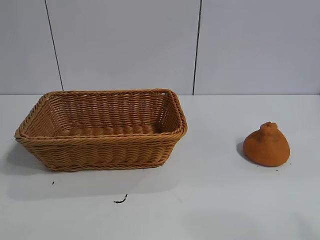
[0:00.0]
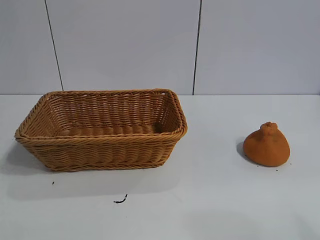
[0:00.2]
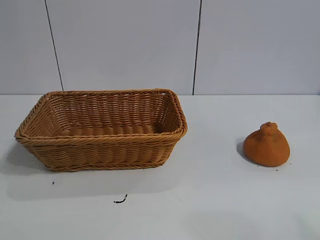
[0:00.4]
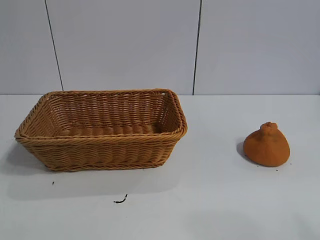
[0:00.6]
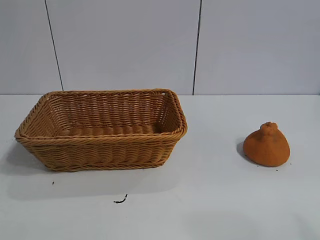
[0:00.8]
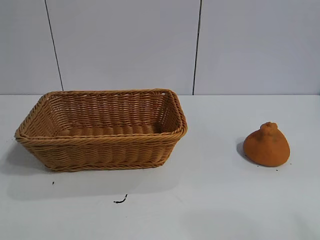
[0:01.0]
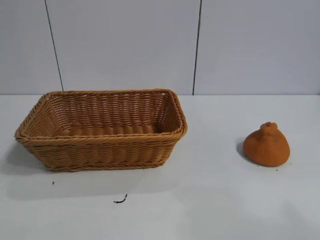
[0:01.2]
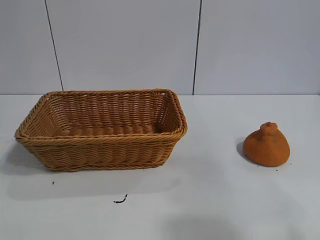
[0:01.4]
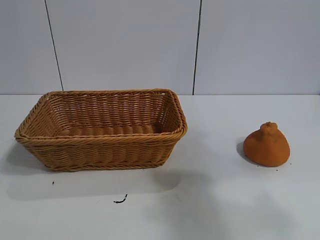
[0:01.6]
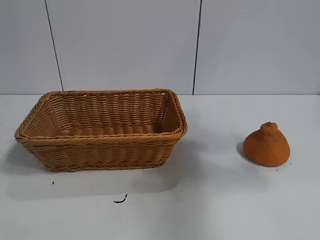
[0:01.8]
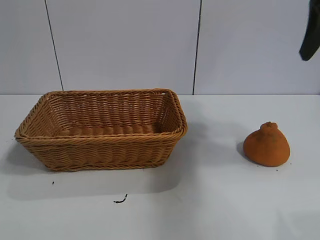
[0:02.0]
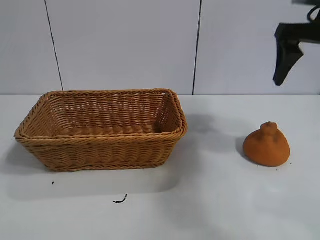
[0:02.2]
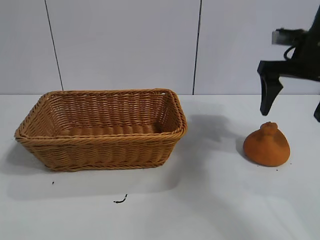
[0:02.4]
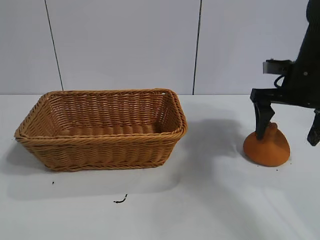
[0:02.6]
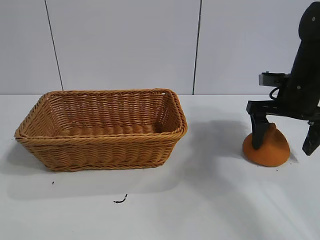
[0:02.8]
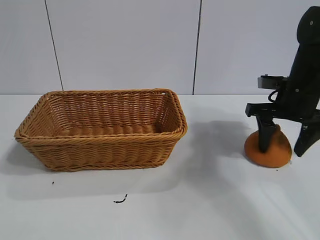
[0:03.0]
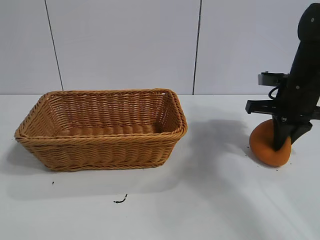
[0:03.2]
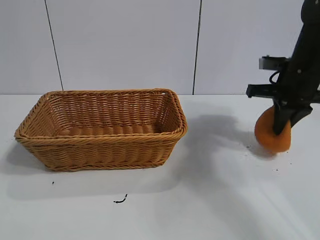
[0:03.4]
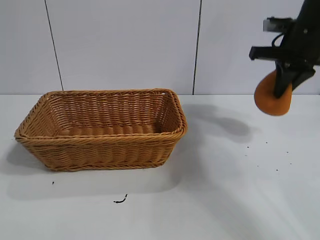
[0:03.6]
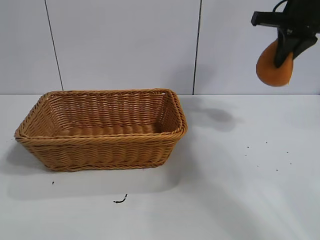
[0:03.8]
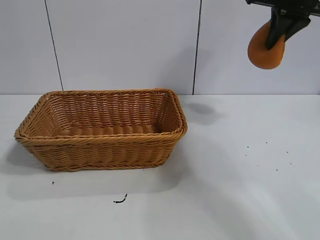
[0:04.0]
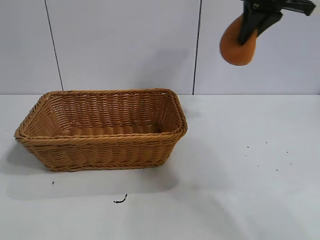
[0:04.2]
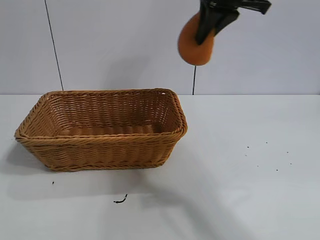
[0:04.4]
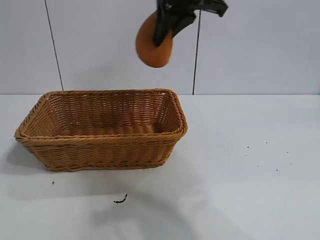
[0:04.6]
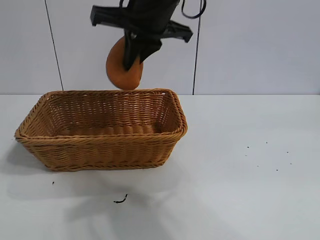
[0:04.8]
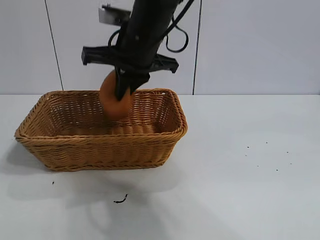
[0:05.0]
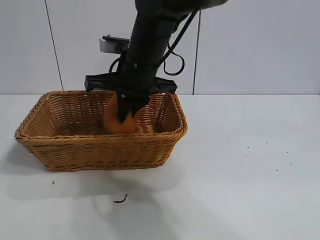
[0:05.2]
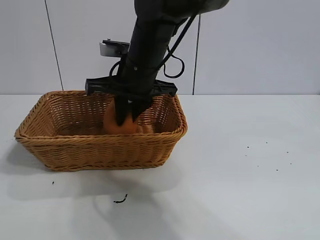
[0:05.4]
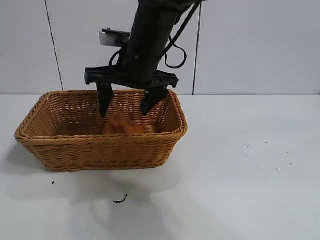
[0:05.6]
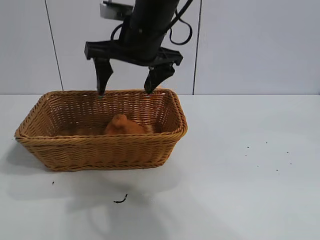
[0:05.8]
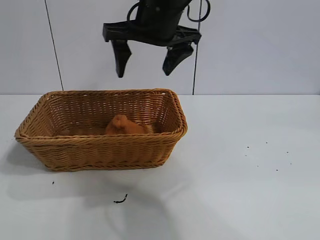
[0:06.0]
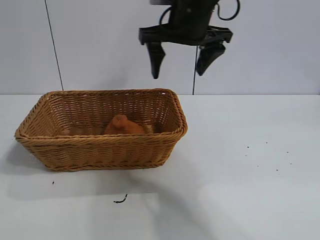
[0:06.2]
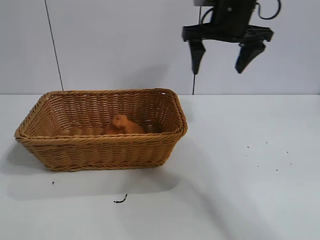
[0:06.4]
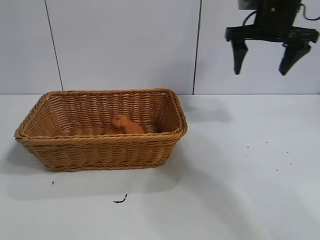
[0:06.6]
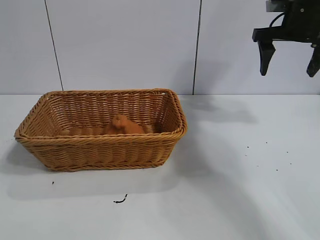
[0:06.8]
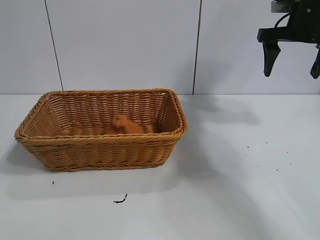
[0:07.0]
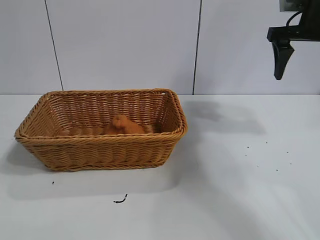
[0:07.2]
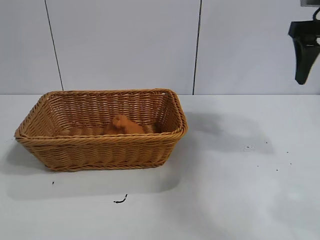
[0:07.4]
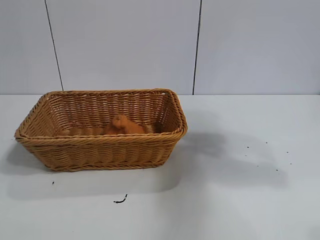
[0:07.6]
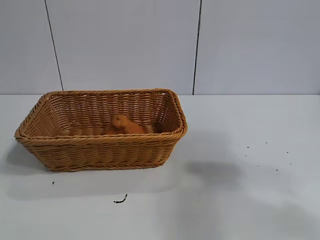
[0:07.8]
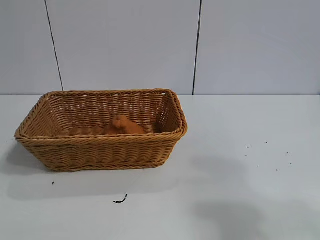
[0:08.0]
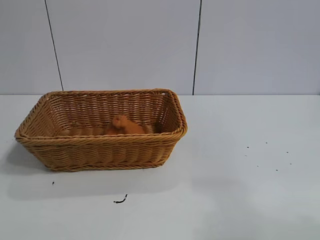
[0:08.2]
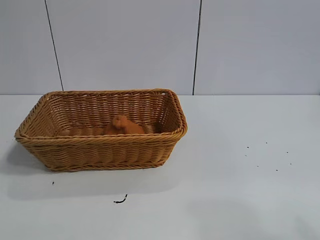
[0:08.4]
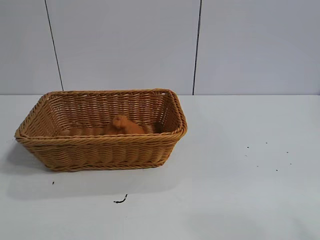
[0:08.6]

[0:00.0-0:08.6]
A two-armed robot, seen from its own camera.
Task of the whole recording: pick up the orange and put it into the basket.
Step, 0:01.0 to 0:03.0: Grasp the orange with right gripper.
Step, 0:03.4 to 0:05.8: Place the orange in the basket with right gripper.

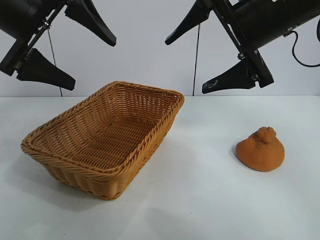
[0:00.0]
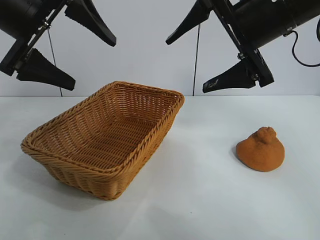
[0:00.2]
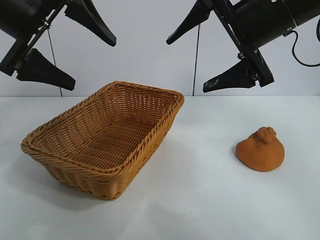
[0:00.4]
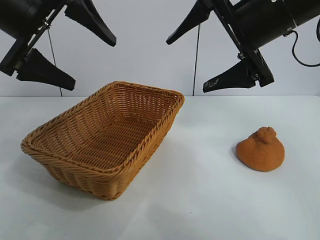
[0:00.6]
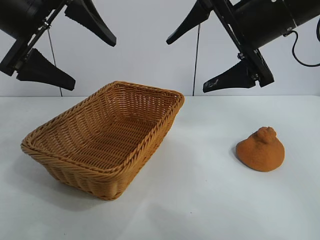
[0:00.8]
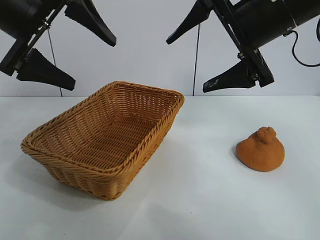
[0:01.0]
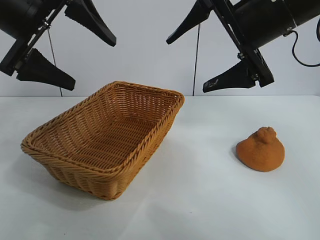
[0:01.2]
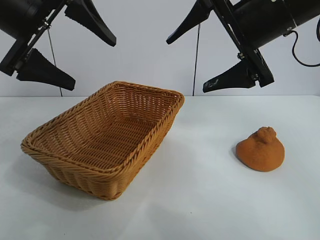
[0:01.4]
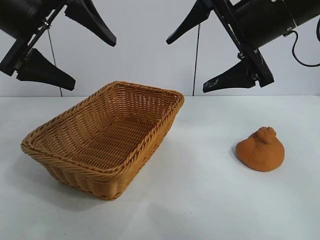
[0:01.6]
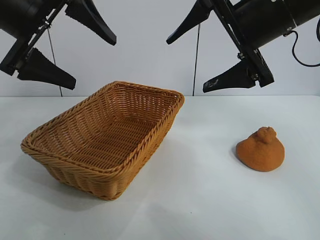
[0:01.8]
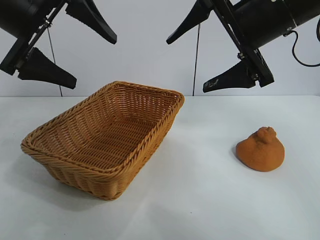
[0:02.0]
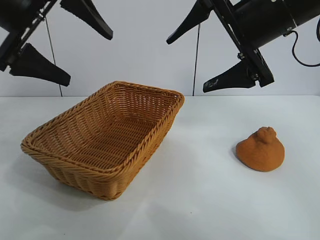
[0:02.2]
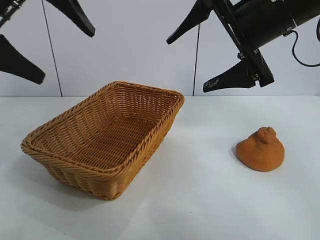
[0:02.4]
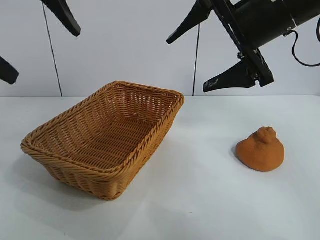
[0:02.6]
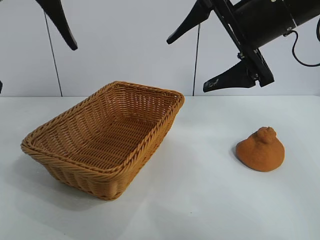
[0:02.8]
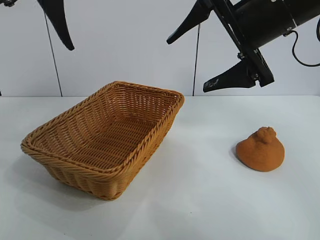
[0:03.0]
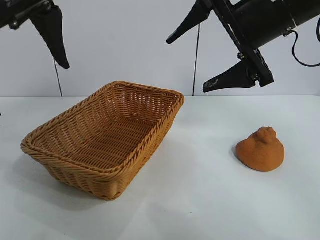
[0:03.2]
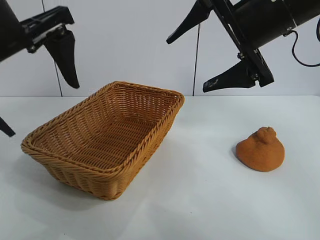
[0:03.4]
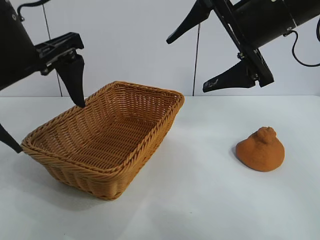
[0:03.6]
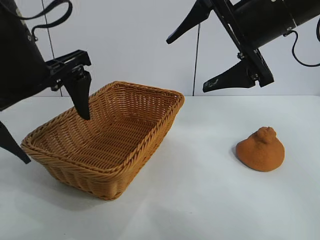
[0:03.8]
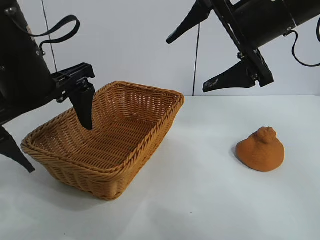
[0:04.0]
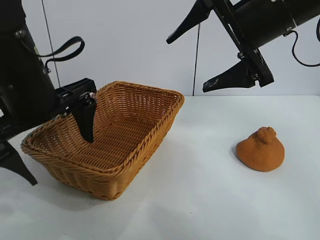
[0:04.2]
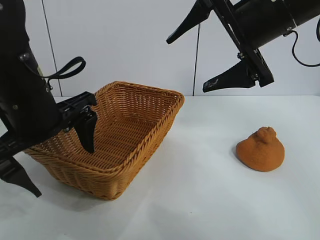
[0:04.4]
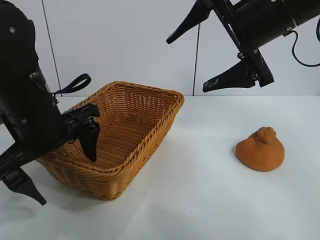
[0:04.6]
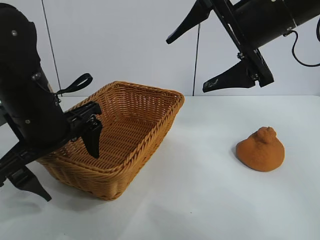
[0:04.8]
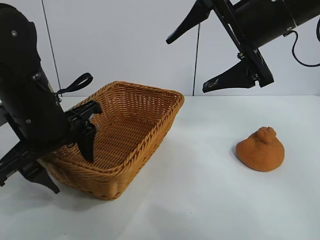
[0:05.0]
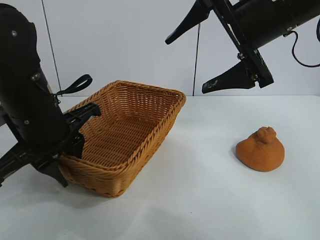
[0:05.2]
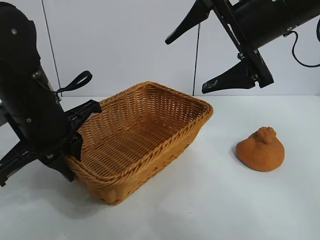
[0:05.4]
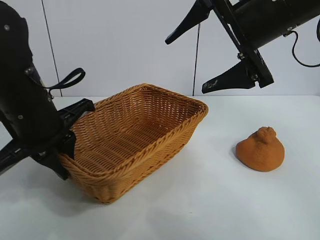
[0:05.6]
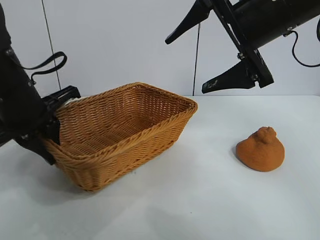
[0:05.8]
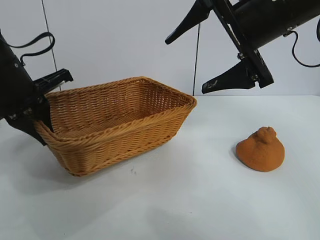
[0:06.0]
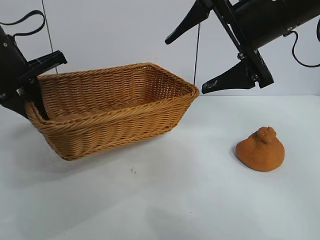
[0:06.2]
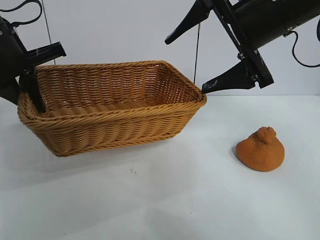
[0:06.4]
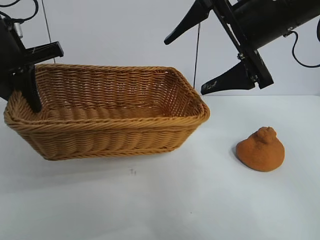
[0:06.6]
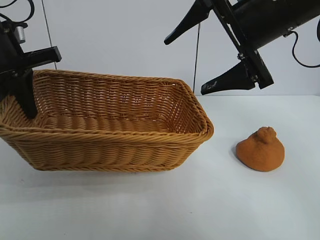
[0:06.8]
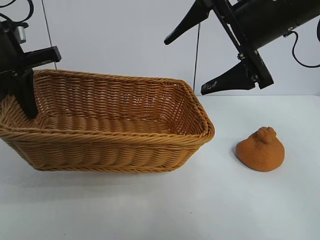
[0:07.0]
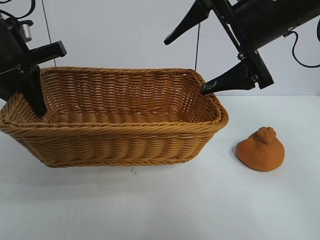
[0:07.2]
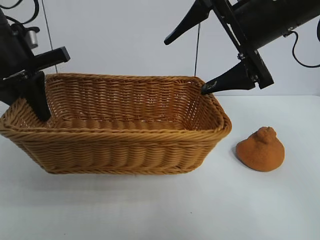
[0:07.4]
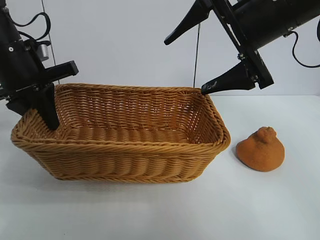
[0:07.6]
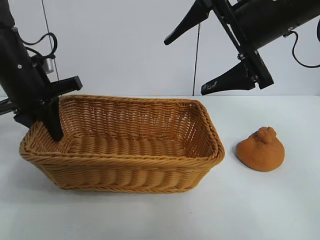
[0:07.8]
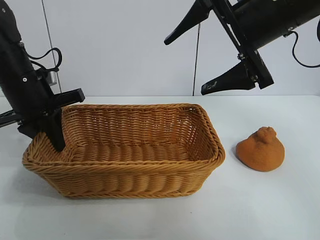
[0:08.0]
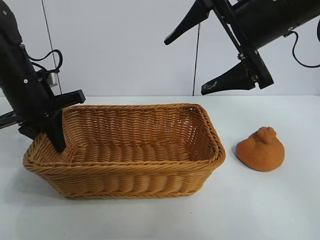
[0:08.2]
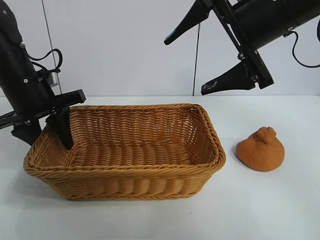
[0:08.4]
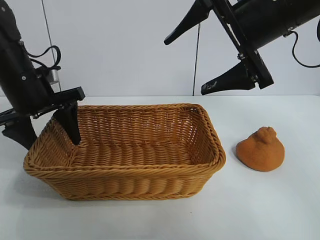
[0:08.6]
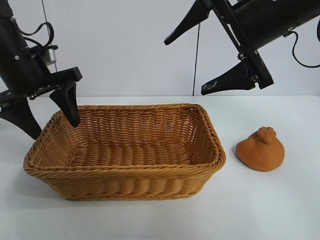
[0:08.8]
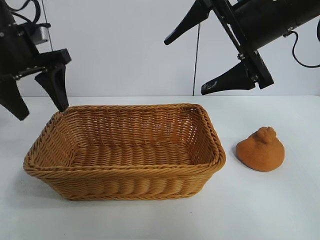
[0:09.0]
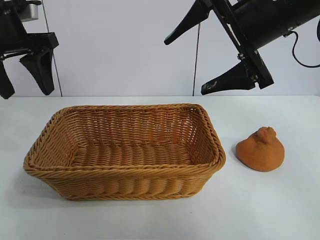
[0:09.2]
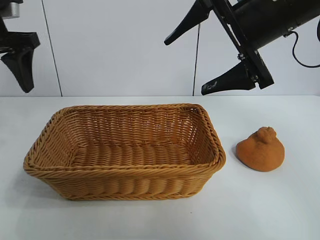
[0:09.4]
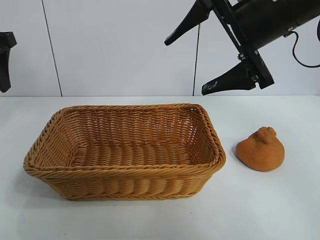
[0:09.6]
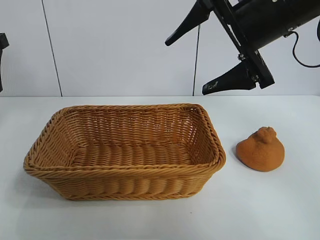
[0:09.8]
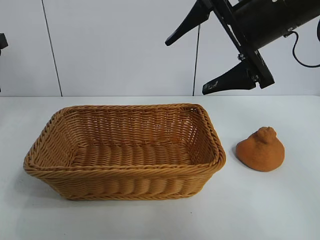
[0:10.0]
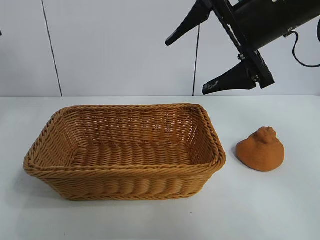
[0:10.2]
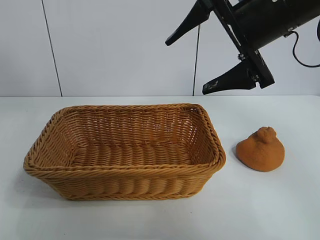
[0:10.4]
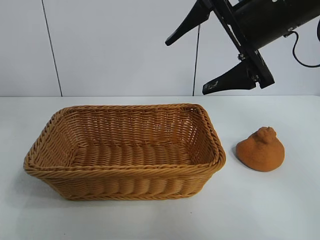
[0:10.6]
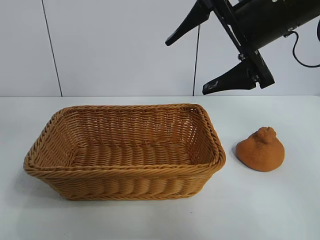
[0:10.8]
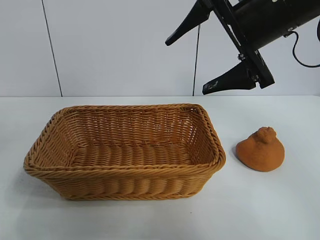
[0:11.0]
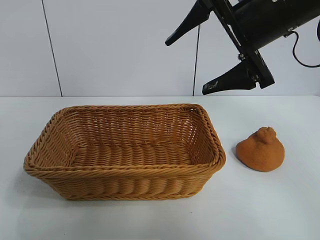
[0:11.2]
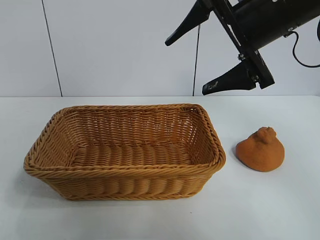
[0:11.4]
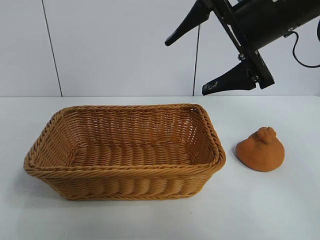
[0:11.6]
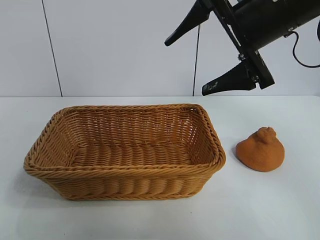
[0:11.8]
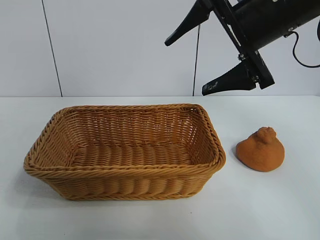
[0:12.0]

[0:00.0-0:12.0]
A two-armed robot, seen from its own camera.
Task of the whole recording: pick up the orange and put it into the basket.
Step, 0:01.8 to 0:05.2: Grasp the basket with left gripper.
Step, 0:05.4 to 0:08.6: Place the basket in the center of view with left gripper.

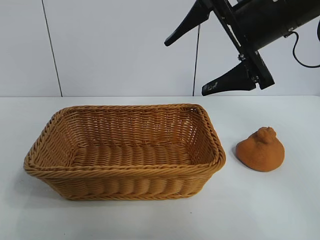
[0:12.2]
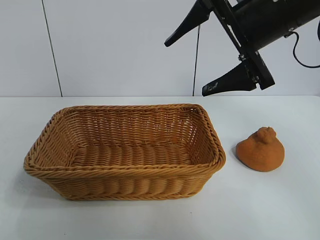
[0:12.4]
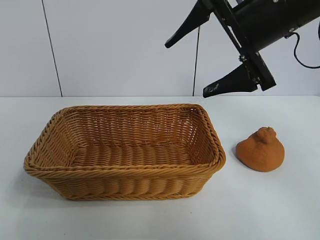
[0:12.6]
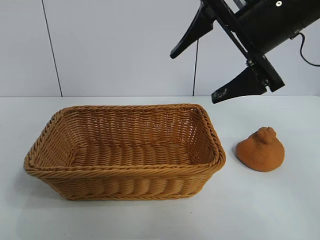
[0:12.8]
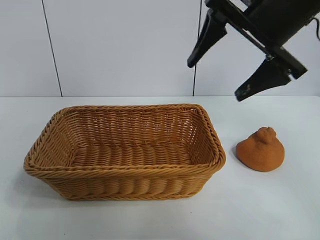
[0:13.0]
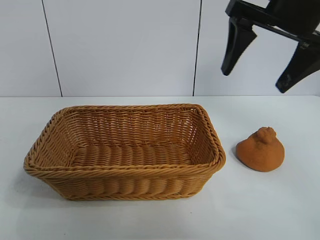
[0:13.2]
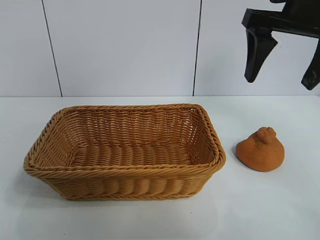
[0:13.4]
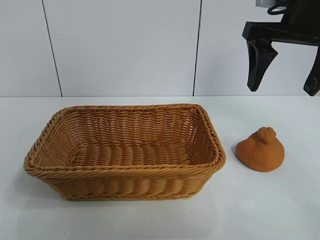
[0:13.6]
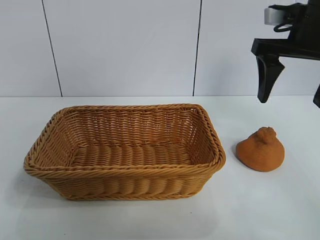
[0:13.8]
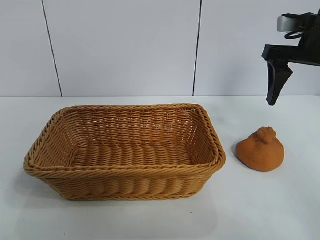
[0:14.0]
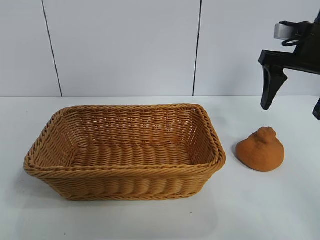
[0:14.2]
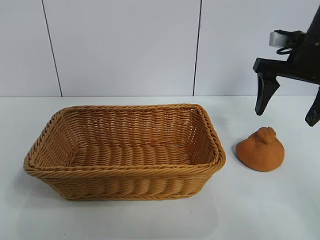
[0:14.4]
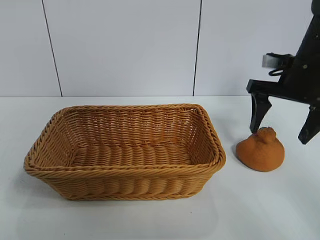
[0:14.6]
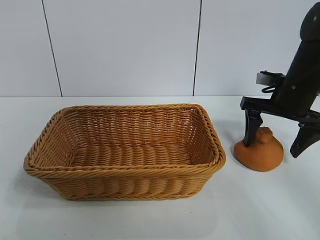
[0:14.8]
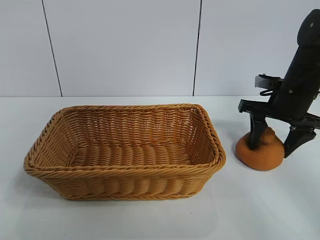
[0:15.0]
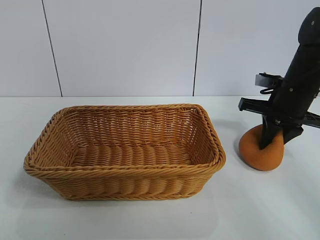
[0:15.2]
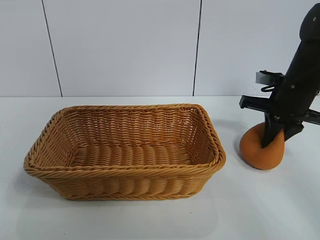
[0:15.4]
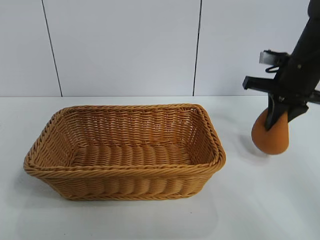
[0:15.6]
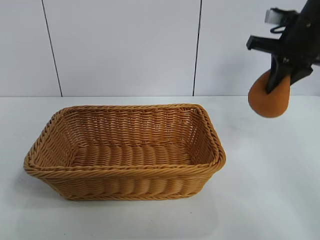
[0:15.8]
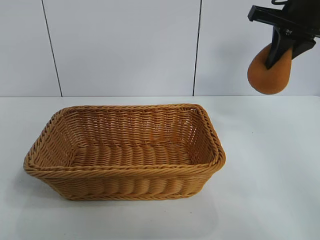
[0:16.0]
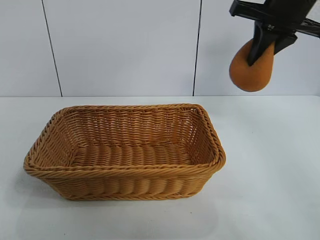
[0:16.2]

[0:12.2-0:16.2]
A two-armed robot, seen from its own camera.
Task of the whole recording: pick up the orange and put it into the basket.
Step, 0:12.2 to 0:15.4: Grasp the orange with right gripper.
